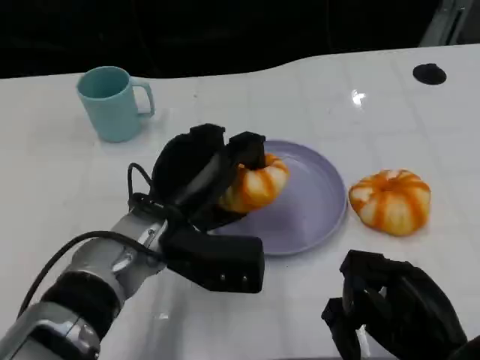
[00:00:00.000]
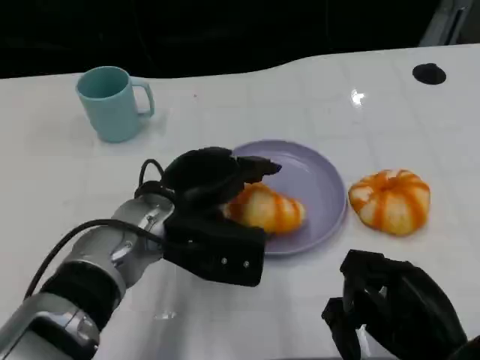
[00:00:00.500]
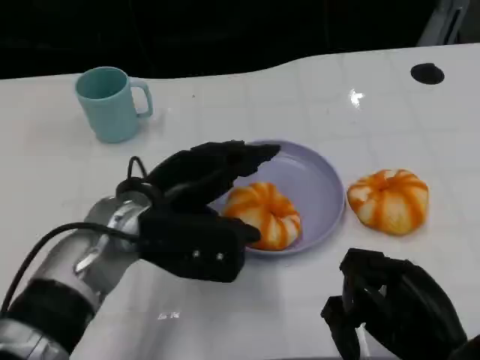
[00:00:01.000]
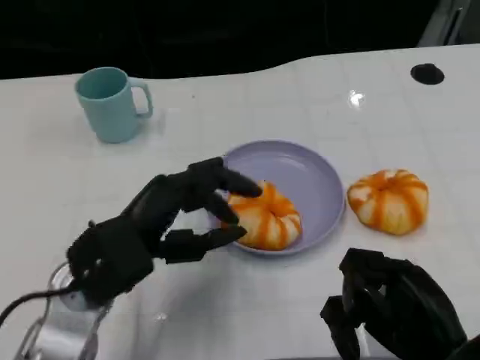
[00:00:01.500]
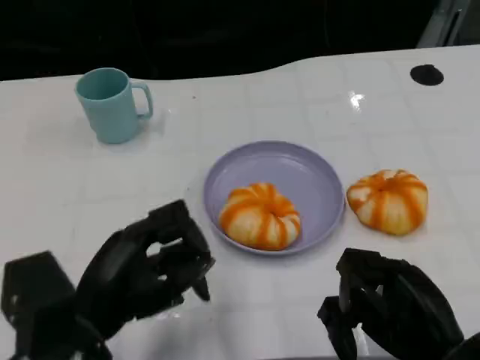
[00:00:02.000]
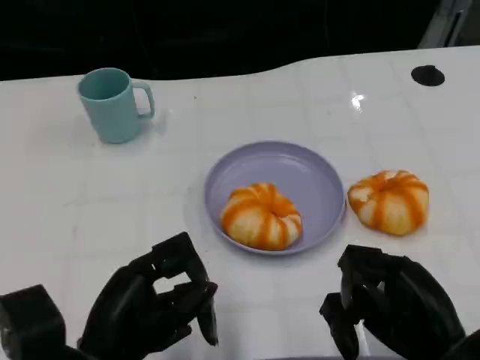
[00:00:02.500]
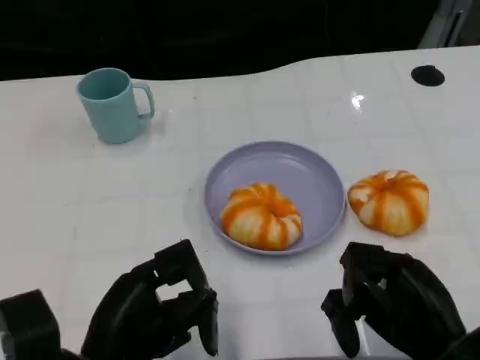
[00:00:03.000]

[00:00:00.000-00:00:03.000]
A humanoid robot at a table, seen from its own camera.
Task of the whole recording: Grasp the bread from the table and place it into the plate.
00:00:00.000 to 00:00:01.500: The left hand is displaced to the left and backward by approximately 10 cm.
00:00:01.500 to 00:00:03.000: The left hand moves backward, about 10 cm.

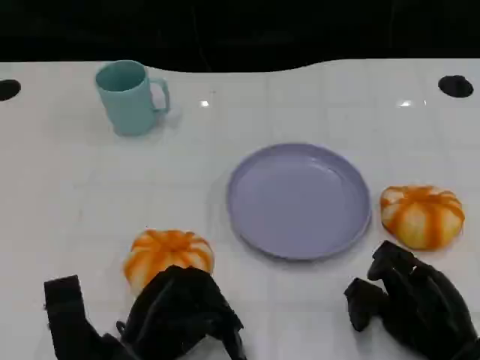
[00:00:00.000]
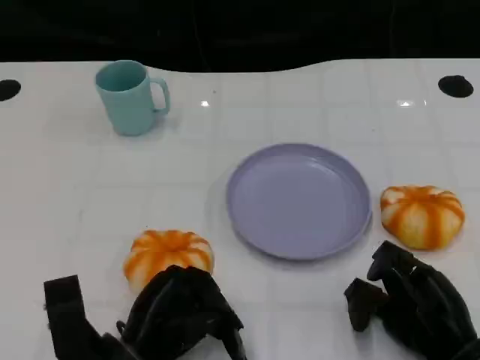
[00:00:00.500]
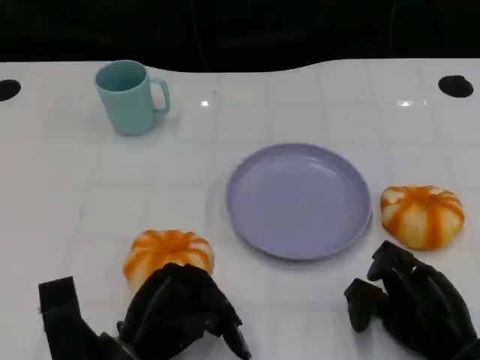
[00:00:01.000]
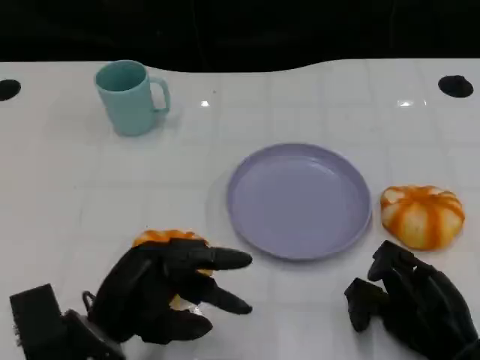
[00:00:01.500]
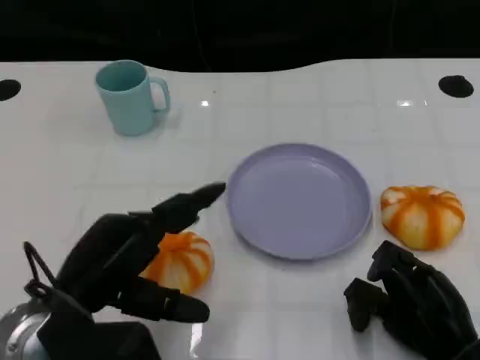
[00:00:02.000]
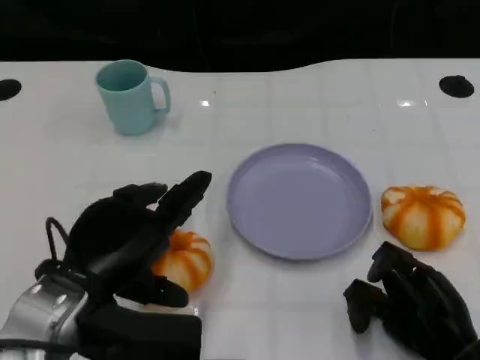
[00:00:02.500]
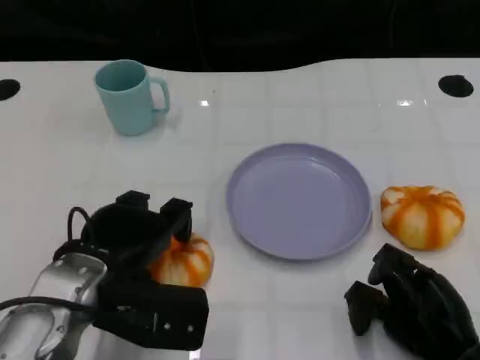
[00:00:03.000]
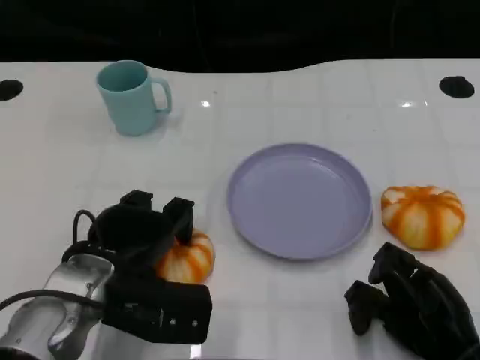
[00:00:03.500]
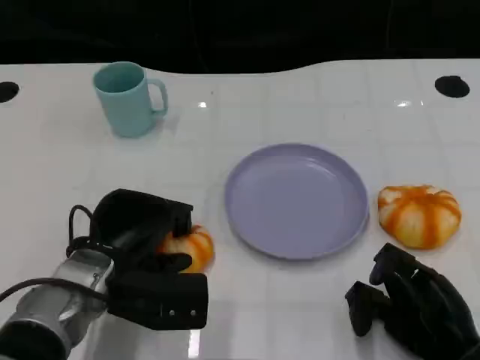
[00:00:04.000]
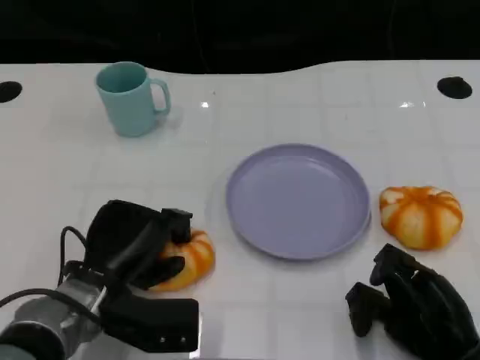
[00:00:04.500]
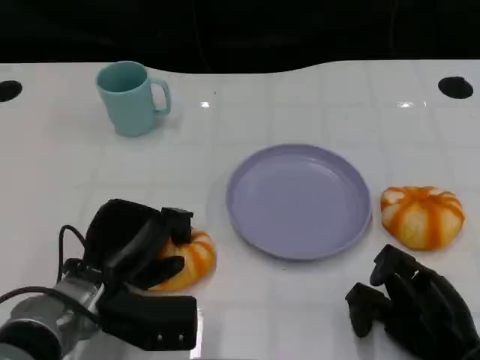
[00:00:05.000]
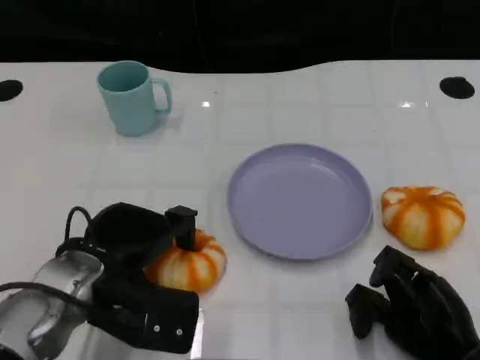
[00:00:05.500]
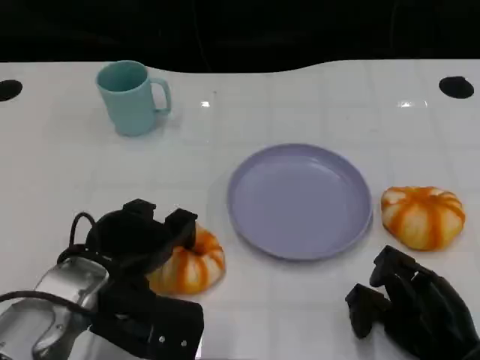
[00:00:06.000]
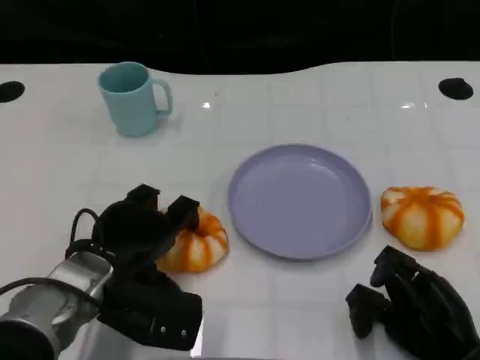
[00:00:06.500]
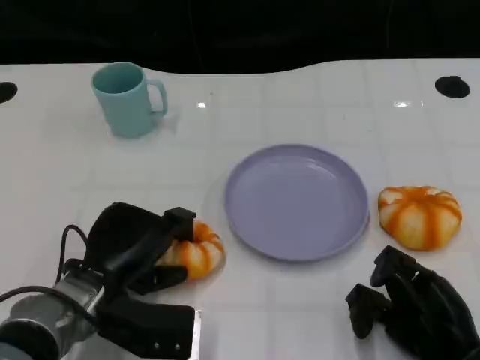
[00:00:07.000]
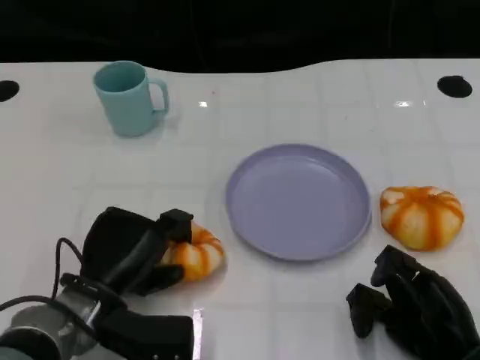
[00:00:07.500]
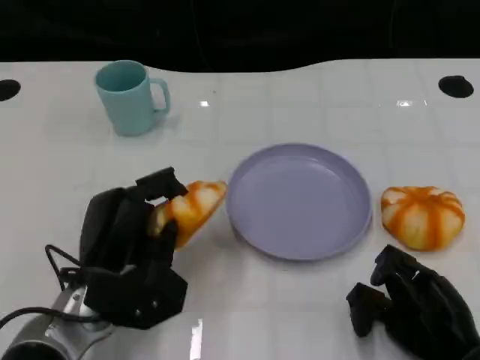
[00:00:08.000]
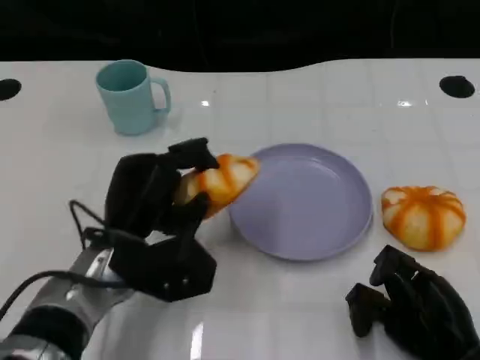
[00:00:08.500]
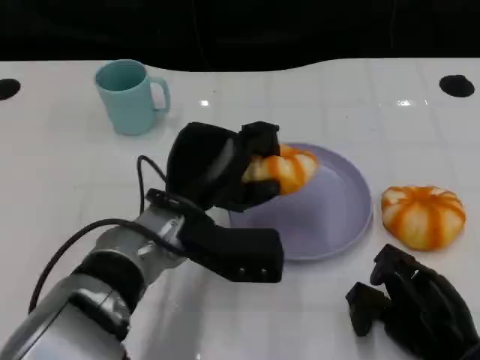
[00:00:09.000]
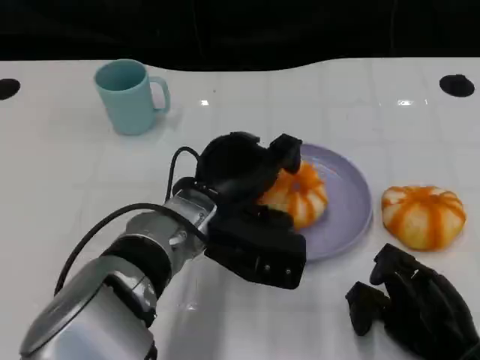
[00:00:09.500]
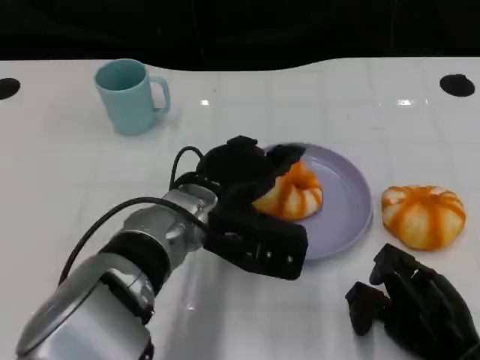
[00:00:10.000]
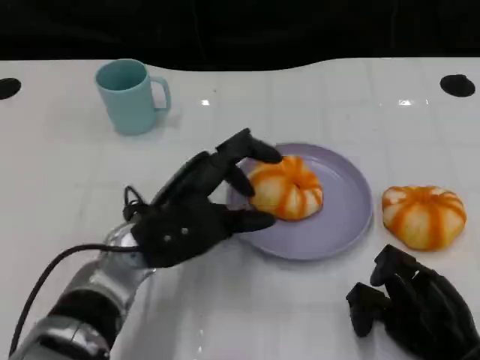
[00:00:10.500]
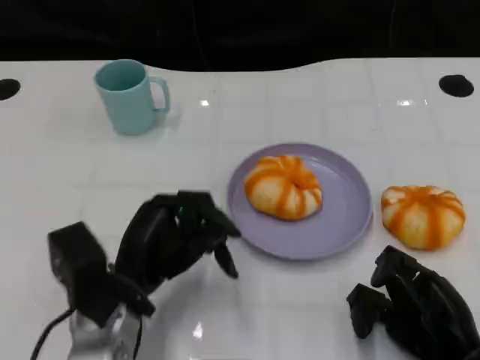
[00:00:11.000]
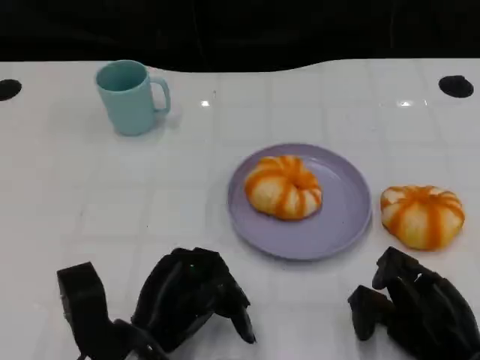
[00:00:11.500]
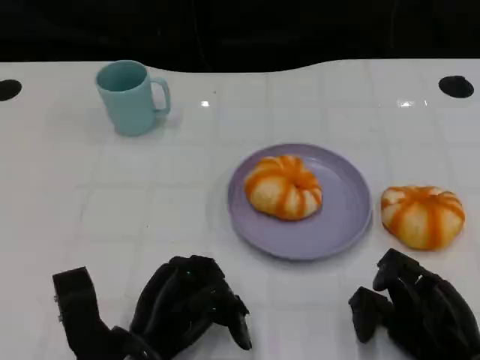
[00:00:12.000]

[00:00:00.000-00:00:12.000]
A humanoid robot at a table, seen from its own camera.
Task of the whole recording: Grasp the bread from the table and place it into the plate.
00:00:00.000 to 00:00:02.000: The left hand goes approximately 10 cm upward.
00:00:02.000 to 00:00:04.000: The left hand heads forward and downward, covering some 10 cm.
00:00:04.000 to 00:00:06.000: The hands stay close to where they were, moving slightly.
00:00:08.000 to 00:00:10.000: The left hand moves to the right, upward and forward, approximately 15 cm.
00:00:10.000 to 00:00:12.000: The left hand travels backward, downward and to the left by roughly 15 cm.

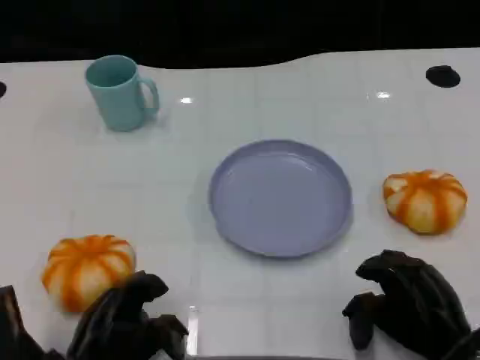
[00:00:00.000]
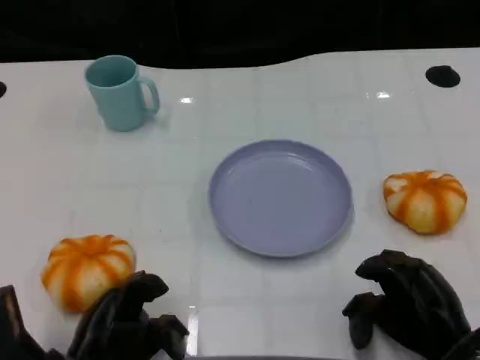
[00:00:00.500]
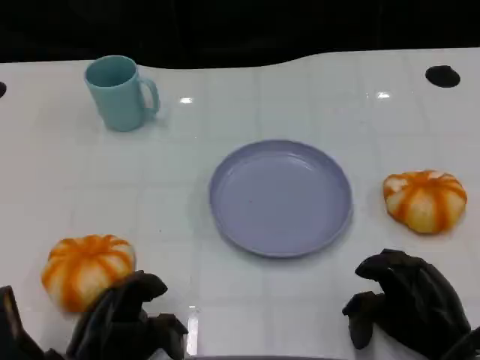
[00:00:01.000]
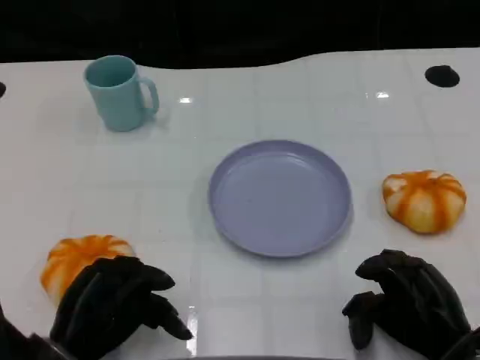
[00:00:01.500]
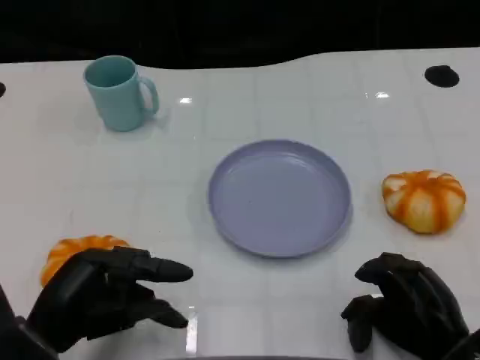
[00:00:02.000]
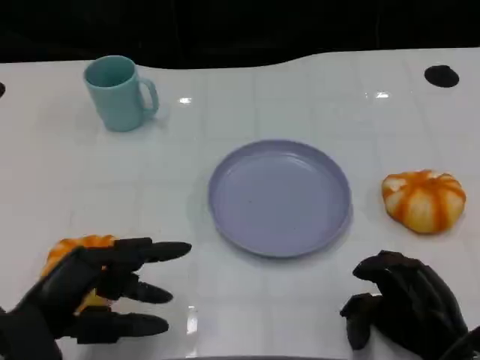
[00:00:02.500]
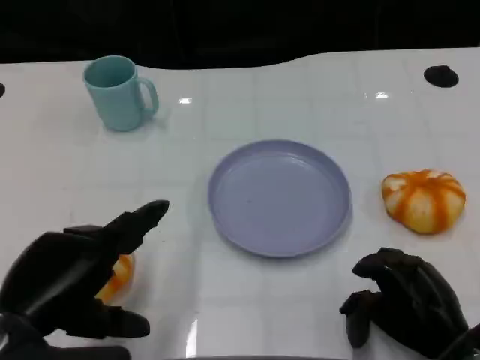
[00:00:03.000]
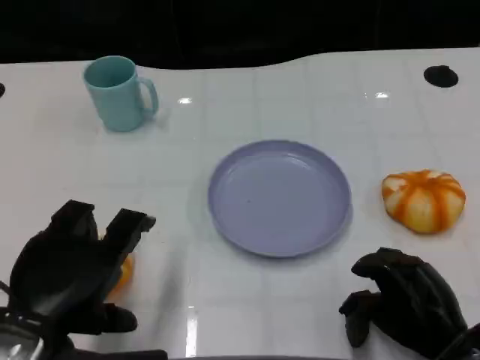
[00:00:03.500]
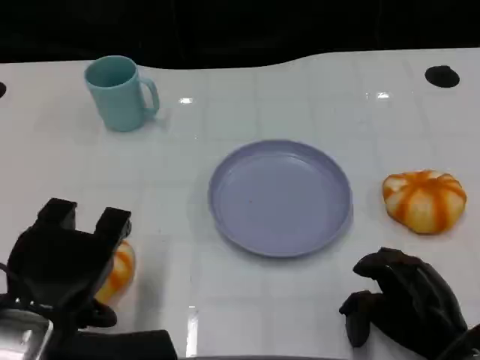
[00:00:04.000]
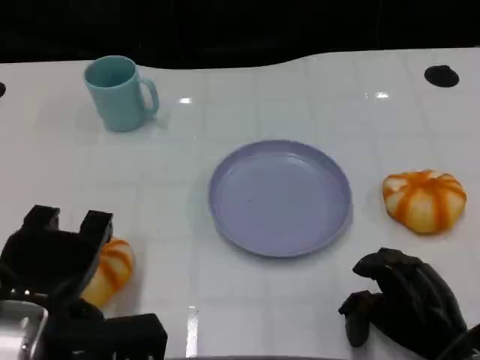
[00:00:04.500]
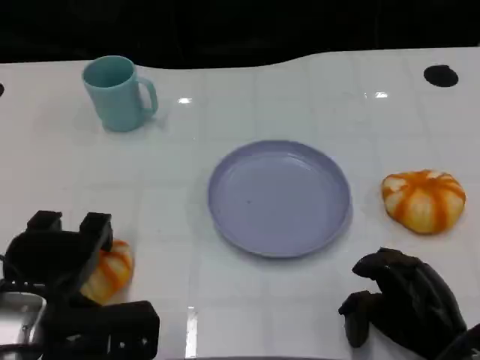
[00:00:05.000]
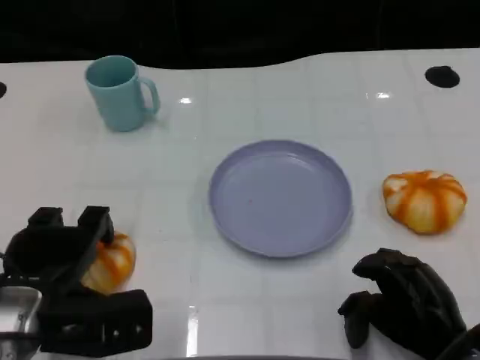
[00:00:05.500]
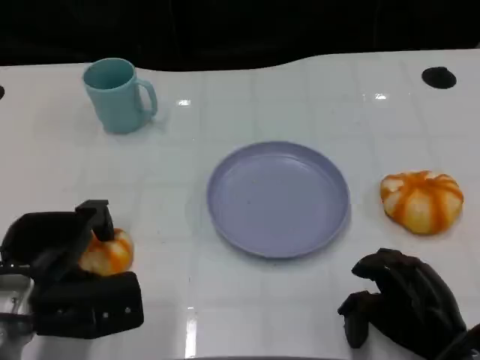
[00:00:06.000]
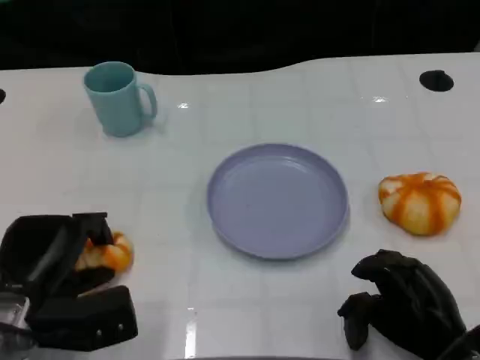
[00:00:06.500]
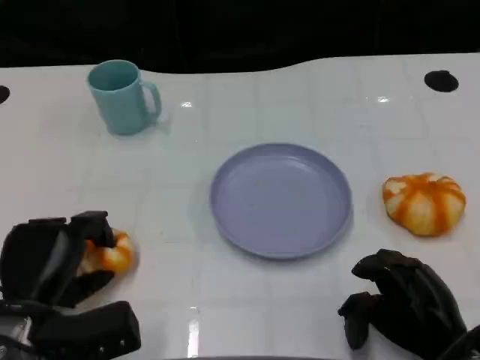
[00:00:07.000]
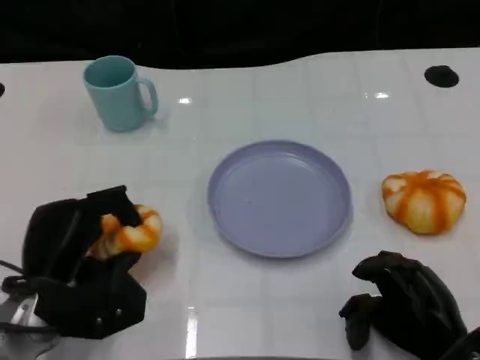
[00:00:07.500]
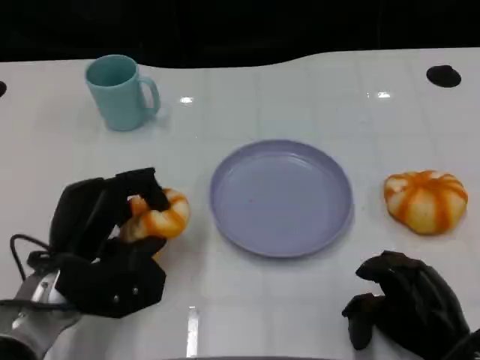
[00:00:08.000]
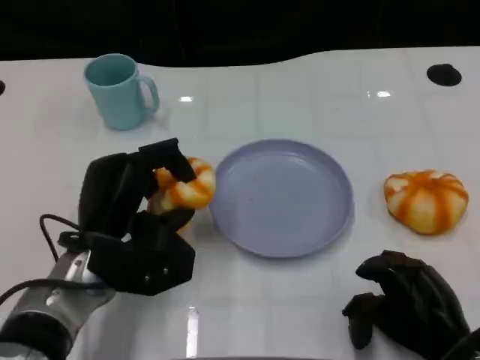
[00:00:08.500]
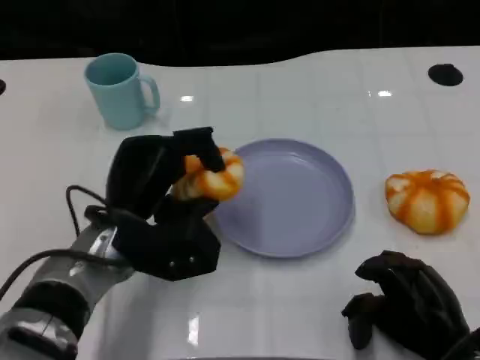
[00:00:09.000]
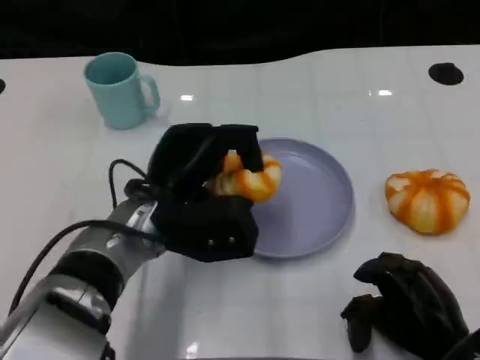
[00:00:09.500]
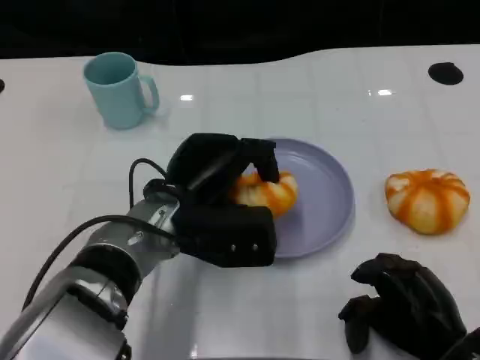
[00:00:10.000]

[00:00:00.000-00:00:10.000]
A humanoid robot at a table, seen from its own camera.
Task of the whole recording: Grasp the bread from the table and place it into the plate.
00:00:00.000 to 00:00:02.000: The left hand travels upward by roughly 5 cm.
00:00:02.000 to 00:00:04.000: The left hand travels upward by approximately 5 cm.
00:00:04.000 to 00:00:06.000: The left hand travels forward and downward by roughly 10 cm.
00:00:08.000 to 00:00:10.000: The left hand shifts approximately 10 cm to the right.
